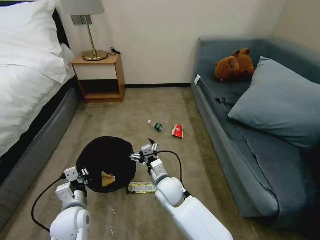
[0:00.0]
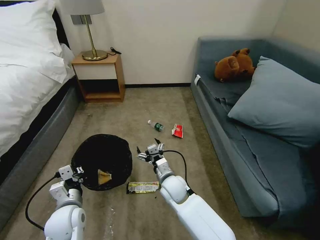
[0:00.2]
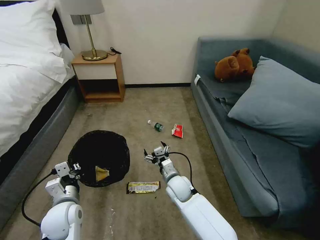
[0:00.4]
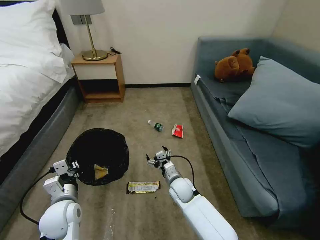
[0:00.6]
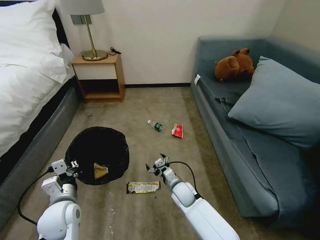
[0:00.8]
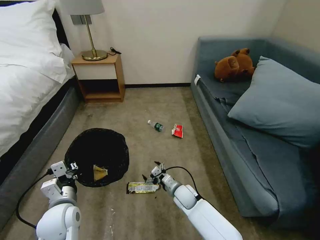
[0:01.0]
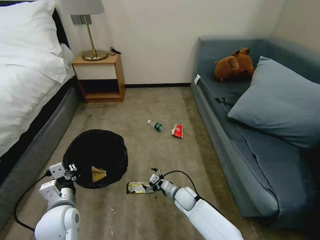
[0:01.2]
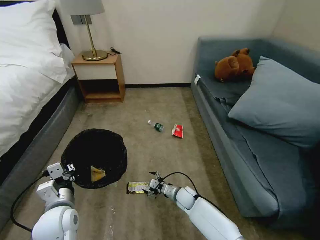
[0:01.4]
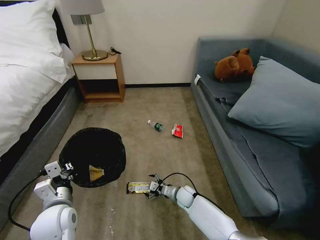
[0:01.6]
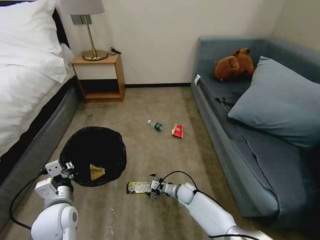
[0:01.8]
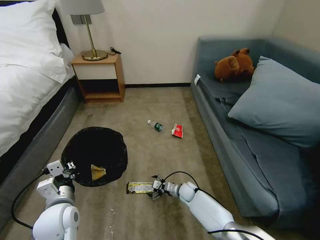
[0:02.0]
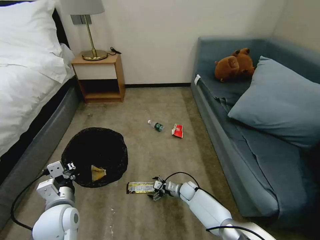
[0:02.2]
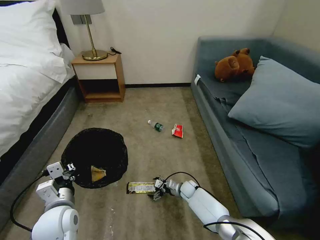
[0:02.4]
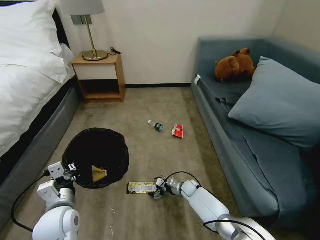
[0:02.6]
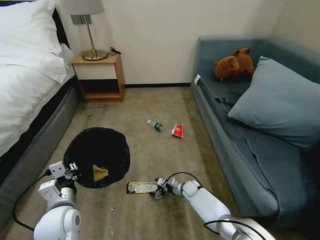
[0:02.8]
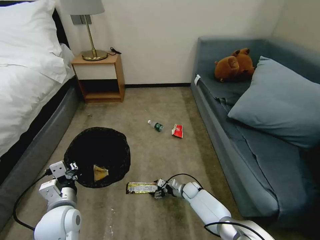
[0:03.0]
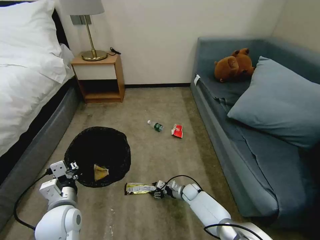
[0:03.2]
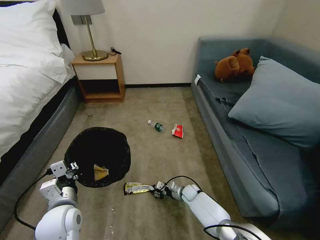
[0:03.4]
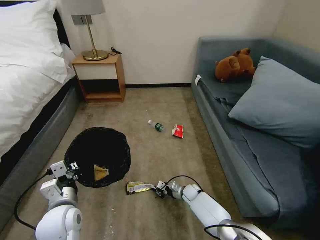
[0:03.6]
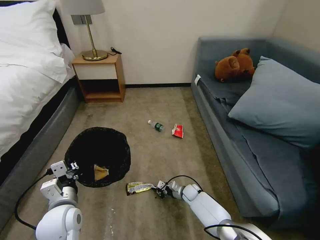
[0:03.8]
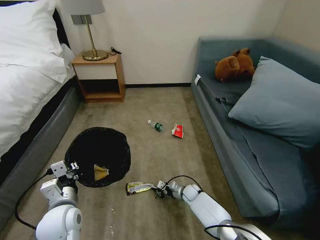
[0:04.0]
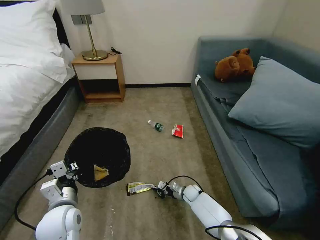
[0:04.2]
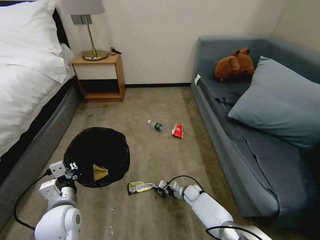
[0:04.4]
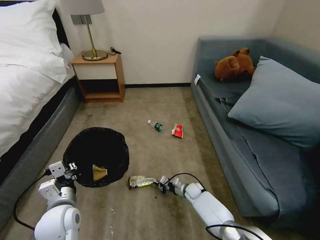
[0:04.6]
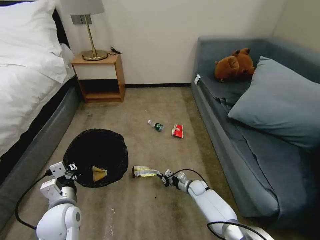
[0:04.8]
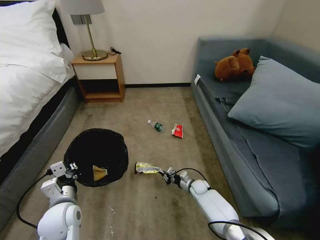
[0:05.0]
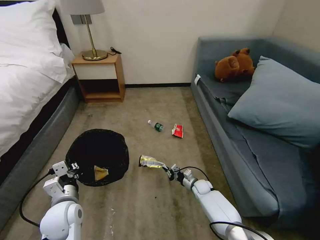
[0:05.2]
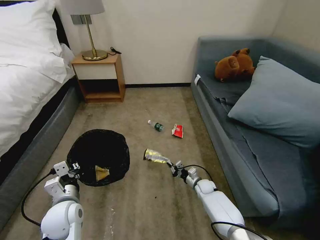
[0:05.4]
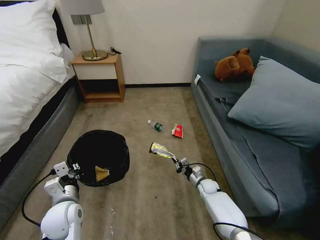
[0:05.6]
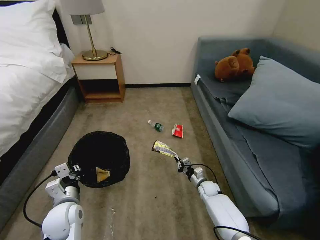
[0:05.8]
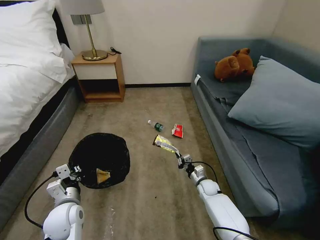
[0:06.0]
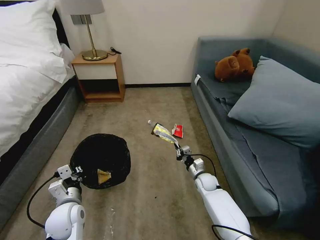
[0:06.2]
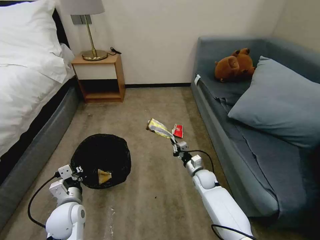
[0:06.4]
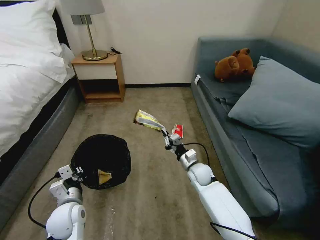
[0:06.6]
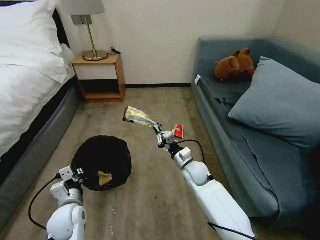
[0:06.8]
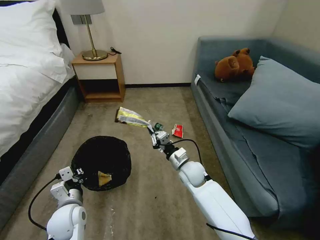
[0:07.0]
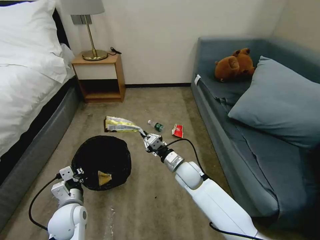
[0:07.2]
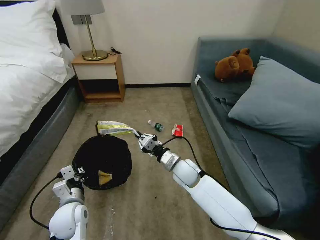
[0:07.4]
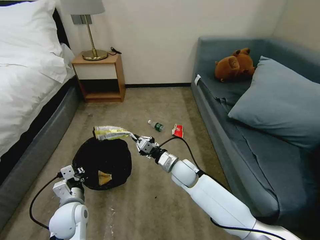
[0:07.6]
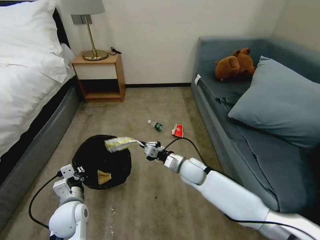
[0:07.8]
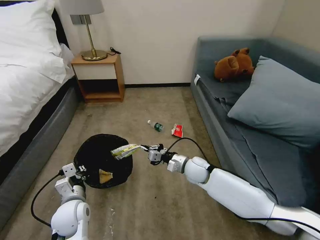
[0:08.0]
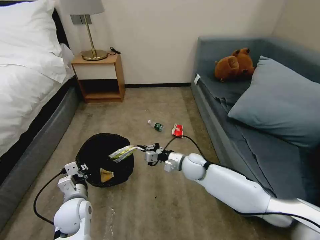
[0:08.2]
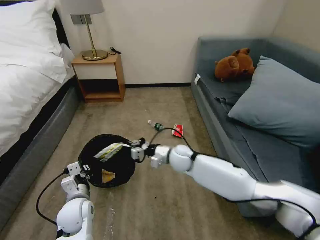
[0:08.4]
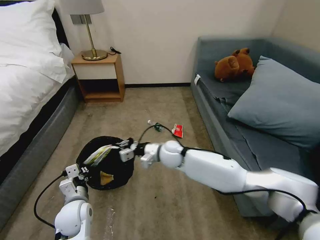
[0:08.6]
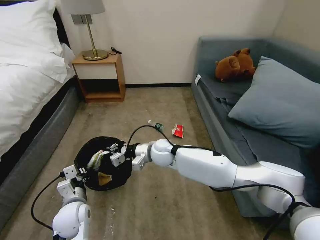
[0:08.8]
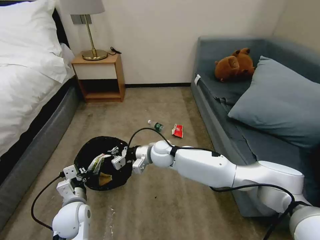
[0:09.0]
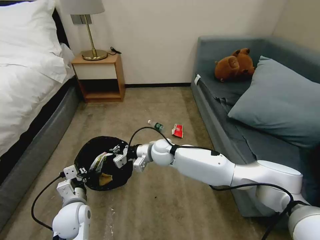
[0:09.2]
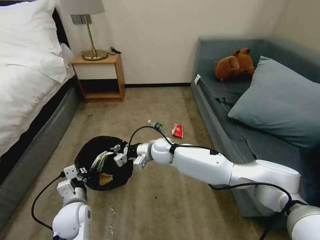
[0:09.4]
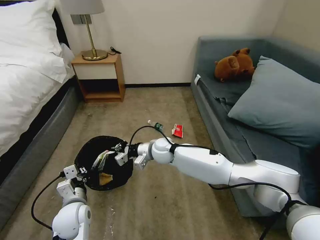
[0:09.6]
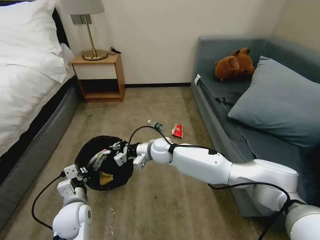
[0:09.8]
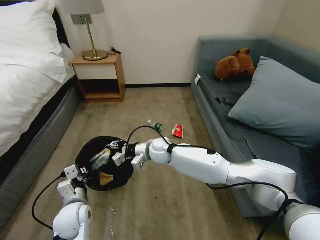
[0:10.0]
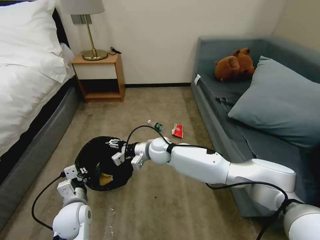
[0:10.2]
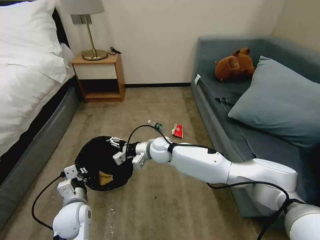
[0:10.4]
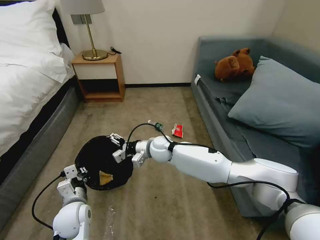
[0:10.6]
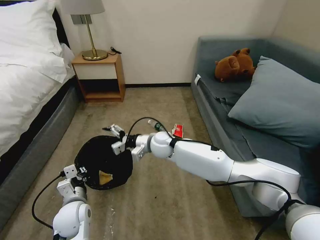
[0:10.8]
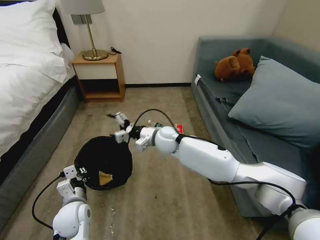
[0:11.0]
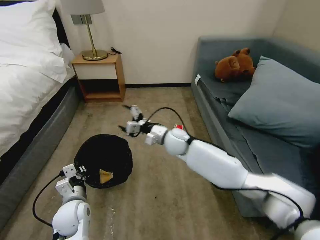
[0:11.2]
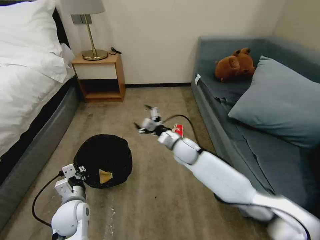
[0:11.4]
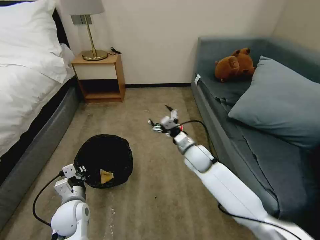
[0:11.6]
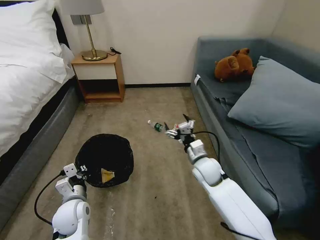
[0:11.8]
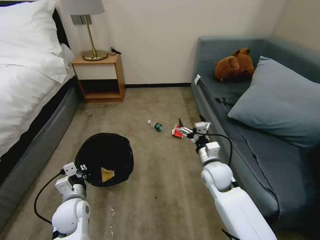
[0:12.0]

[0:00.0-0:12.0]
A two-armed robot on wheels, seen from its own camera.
Task of the whole recording: Pick up the trash bin, then pick up the garbage on the floor and place it into the trash bin.
0:00.0 to 0:01.6: The right gripper is displaced downward and to the right by some 20 cm; the left gripper moves approximately 5 cm.
0:01.6 to 0:03.0: The right gripper moves roughly 10 cm.
0:03.0 to 0:04.4: The right gripper closes.
0:04.4 to 0:06.0: The left gripper ends up approximately 5 cm from where it was. Meanwhile the right gripper moves to the right and upward, some 10 cm.
0:06.0 to 0:07.6: The right gripper shifts about 25 cm upward and to the left.
0:07.6 to 0:09.0: The right gripper moves to the left and forward, approximately 10 cm.
0:09.0 to 0:10.4: The right gripper opens up.
0:10.4 to 0:12.0: The right gripper heads to the right and backward, covering approximately 20 cm.

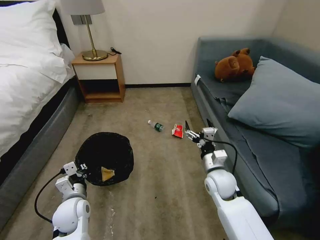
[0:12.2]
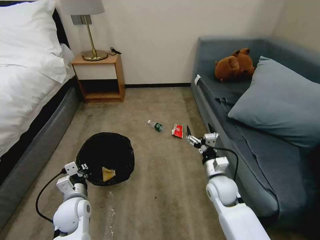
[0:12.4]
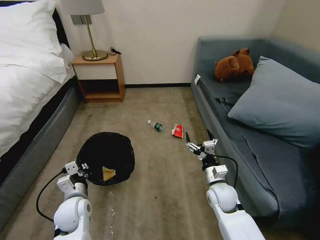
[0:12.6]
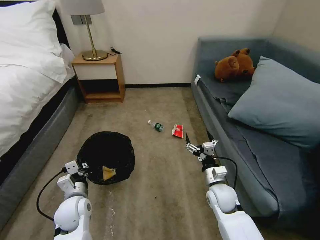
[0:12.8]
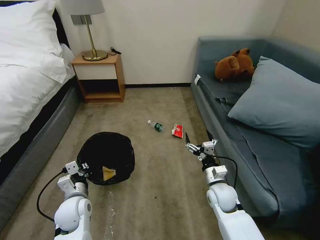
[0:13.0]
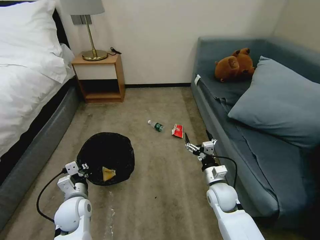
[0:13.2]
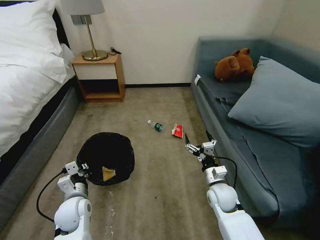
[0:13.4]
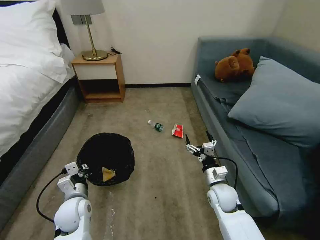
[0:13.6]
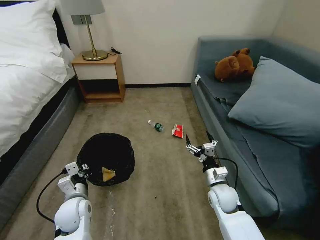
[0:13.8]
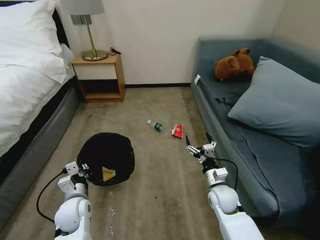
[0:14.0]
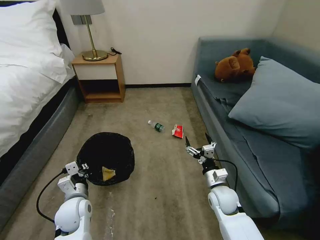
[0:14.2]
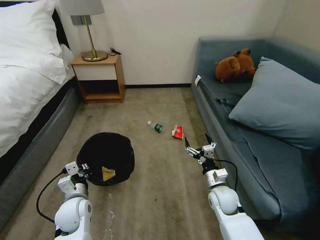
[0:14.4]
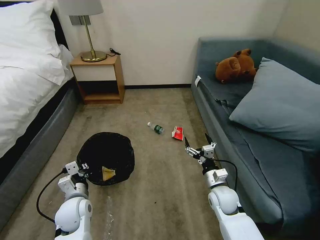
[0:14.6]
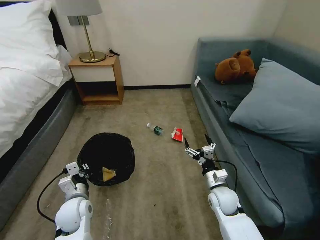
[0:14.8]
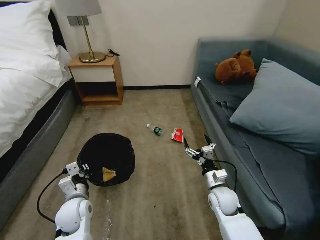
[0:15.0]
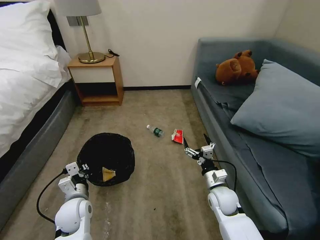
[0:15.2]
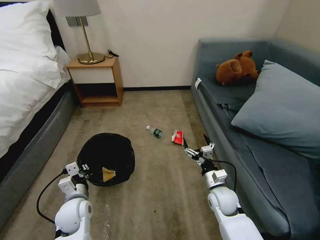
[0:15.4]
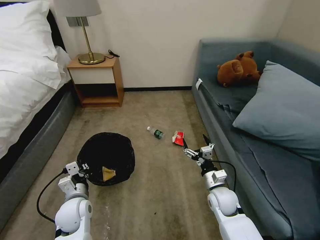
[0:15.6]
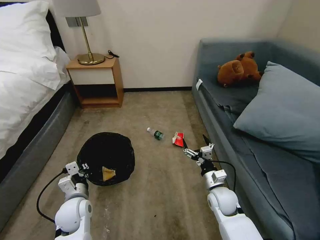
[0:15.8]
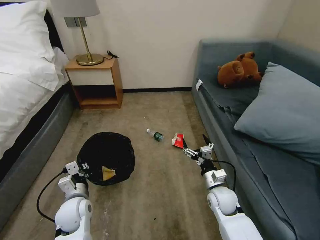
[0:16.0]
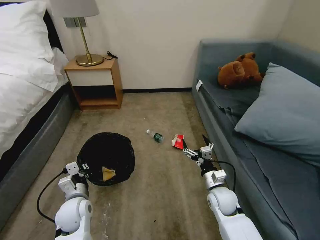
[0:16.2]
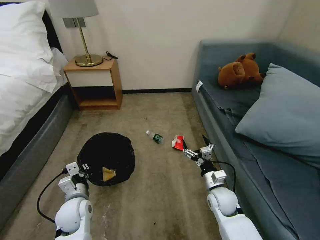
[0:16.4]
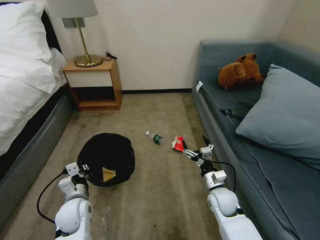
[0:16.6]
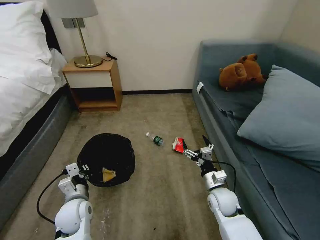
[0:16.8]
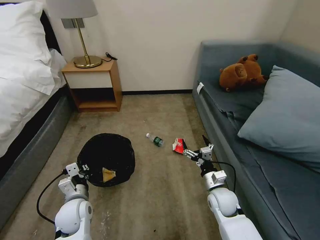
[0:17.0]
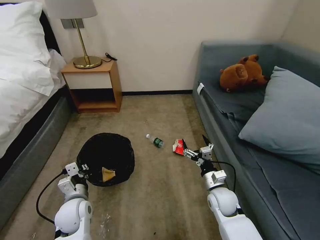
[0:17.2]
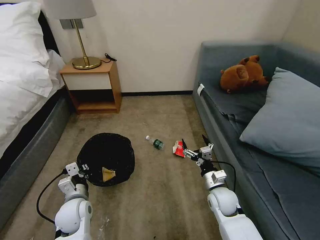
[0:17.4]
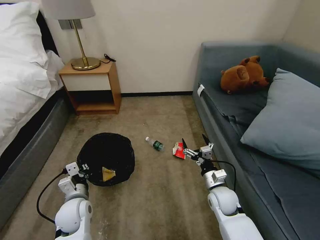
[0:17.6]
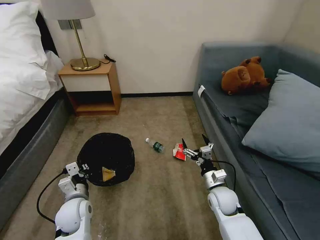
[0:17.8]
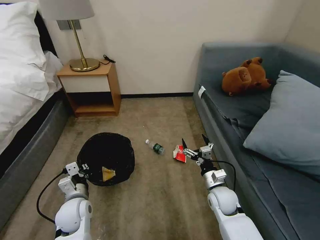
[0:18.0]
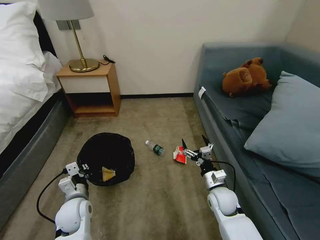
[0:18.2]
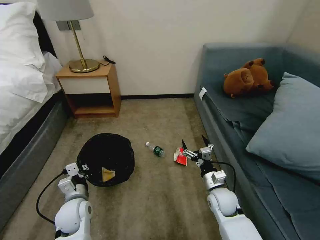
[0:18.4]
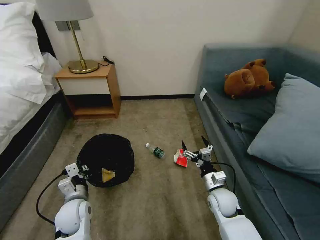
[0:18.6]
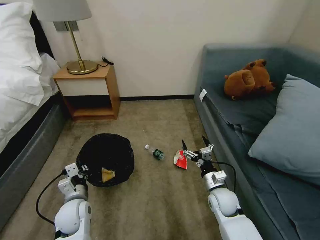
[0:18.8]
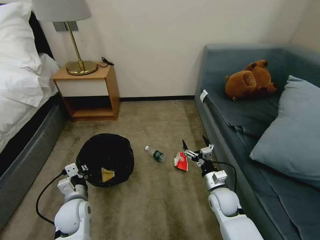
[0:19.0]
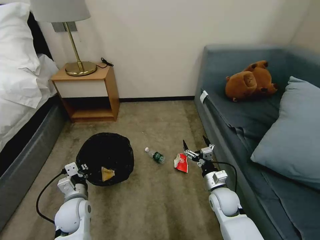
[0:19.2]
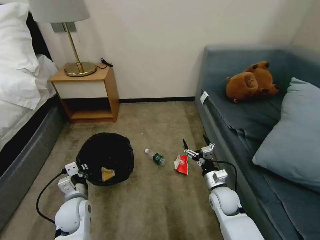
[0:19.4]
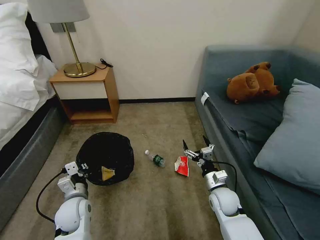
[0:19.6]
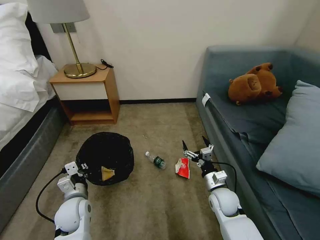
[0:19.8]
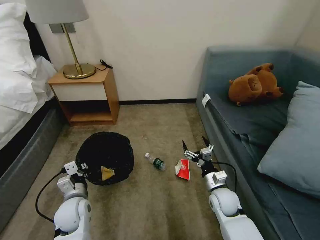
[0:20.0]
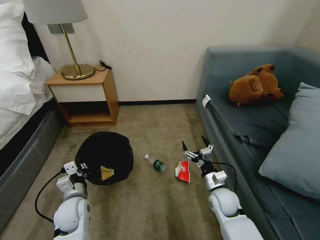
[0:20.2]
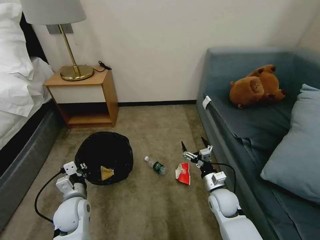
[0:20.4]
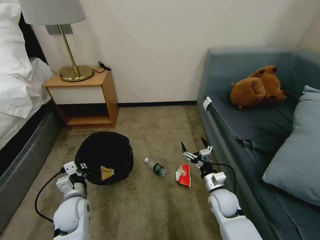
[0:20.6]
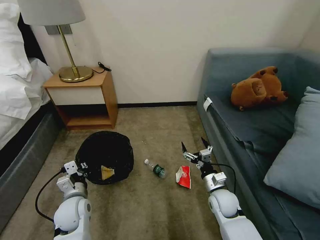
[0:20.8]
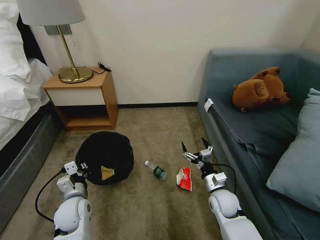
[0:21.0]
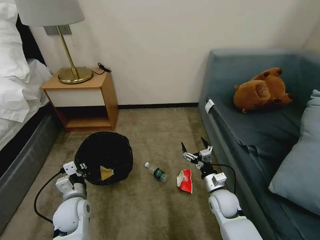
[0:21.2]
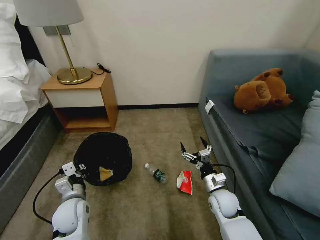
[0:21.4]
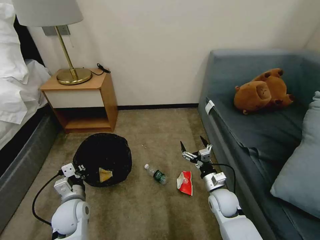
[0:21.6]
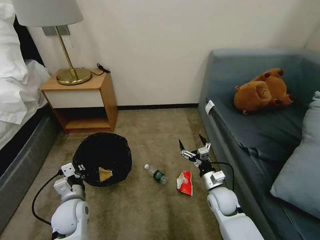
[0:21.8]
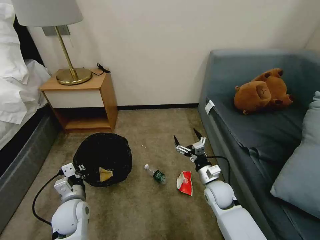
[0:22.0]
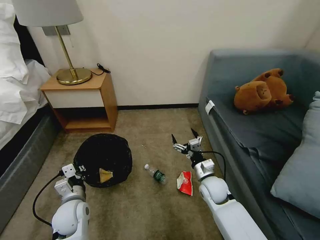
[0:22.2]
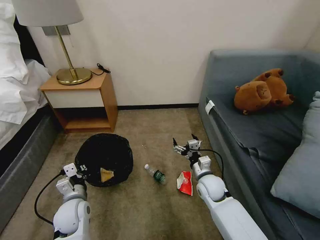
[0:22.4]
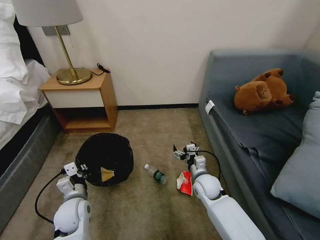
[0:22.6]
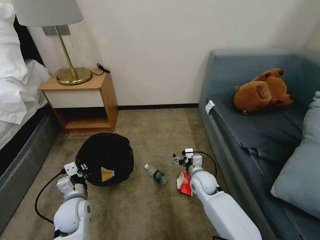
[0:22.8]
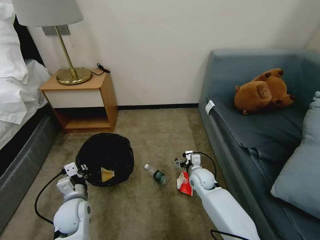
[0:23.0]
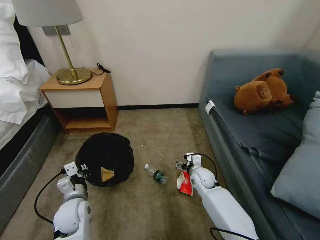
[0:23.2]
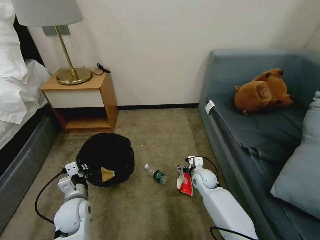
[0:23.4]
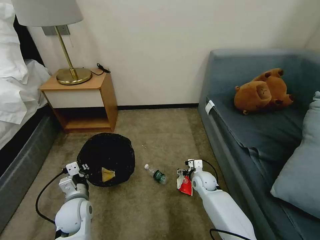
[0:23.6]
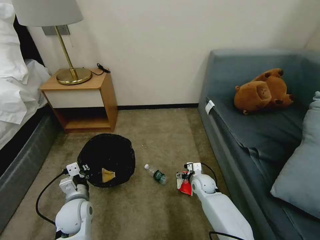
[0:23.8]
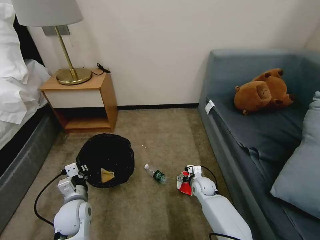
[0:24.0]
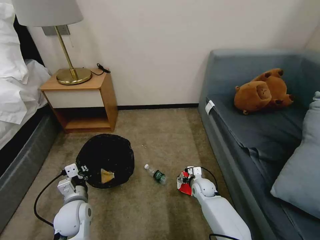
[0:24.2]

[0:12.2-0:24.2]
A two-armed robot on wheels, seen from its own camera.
Task of the whole recording: Pick up the trash bin, then pick up the garbage on the floor and place it into the trash bin.
0:12.2 to 0:13.8: The right gripper shifts about 5 cm downward.
0:13.8 to 0:18.2: Both grippers stay about where they are.
0:18.2 to 0:19.8: Both grippers stay about where they are.
0:21.2 to 0:22.6: The right gripper shifts approximately 10 cm forward and to the left.
0:22.6 to 0:24.2: The right gripper heads downward, covering approximately 10 cm.
